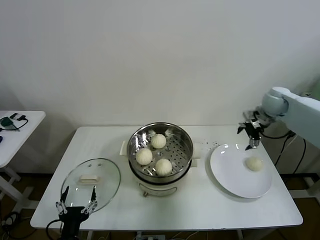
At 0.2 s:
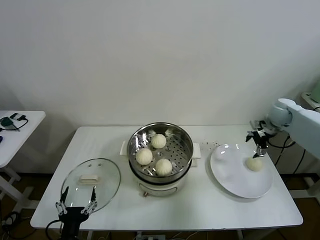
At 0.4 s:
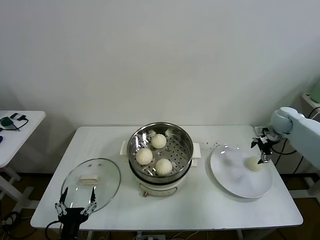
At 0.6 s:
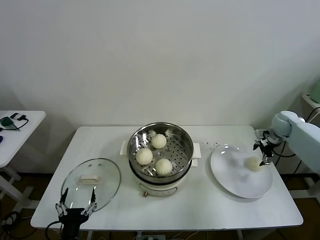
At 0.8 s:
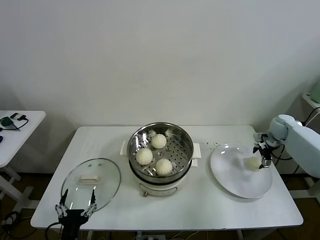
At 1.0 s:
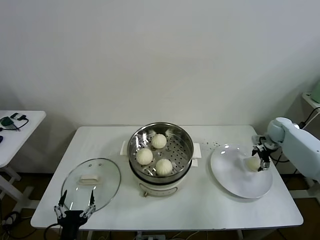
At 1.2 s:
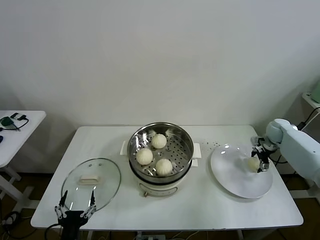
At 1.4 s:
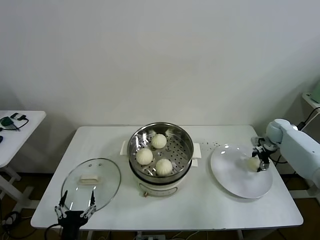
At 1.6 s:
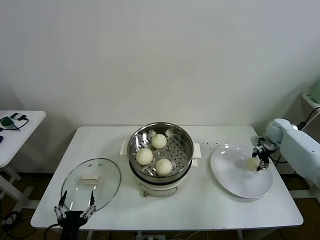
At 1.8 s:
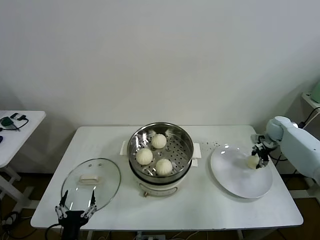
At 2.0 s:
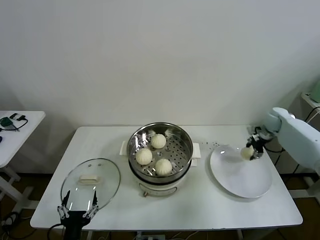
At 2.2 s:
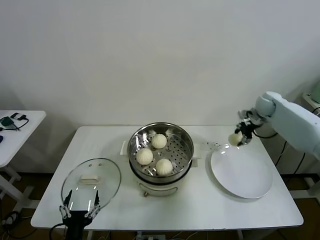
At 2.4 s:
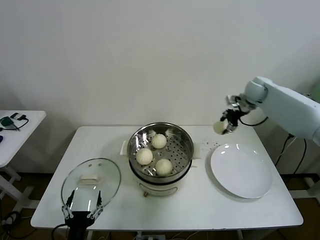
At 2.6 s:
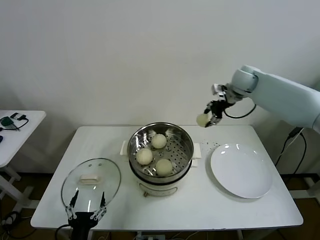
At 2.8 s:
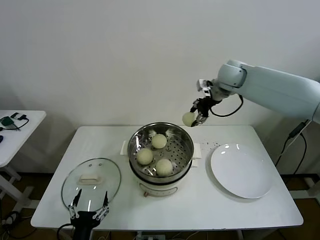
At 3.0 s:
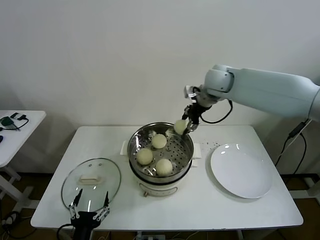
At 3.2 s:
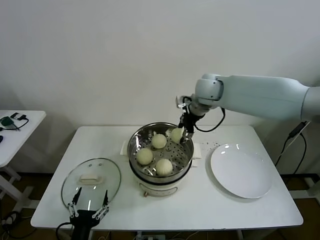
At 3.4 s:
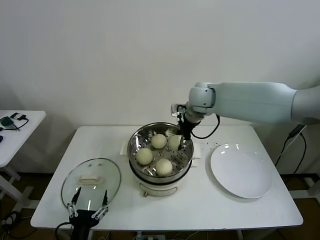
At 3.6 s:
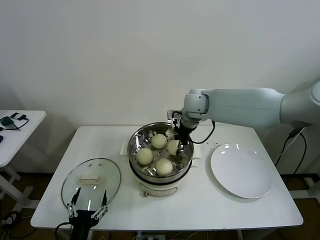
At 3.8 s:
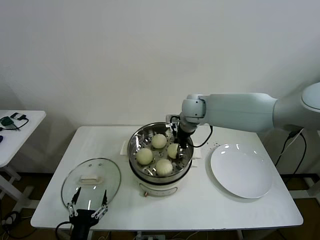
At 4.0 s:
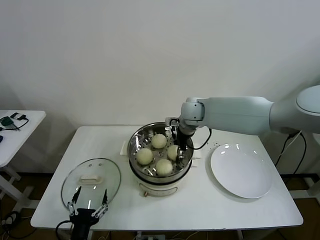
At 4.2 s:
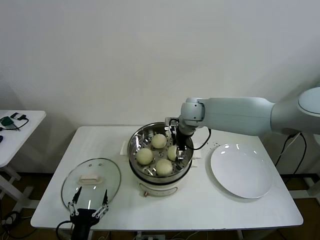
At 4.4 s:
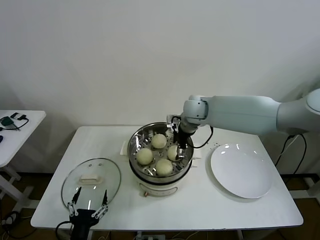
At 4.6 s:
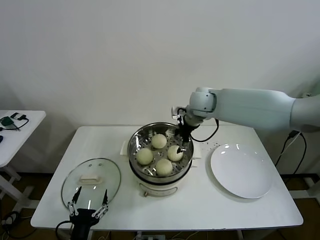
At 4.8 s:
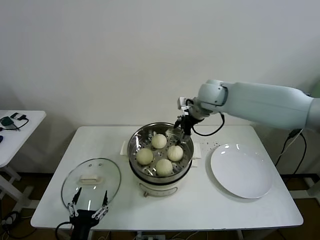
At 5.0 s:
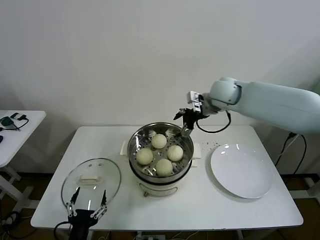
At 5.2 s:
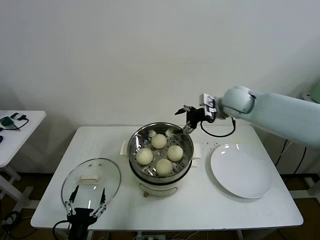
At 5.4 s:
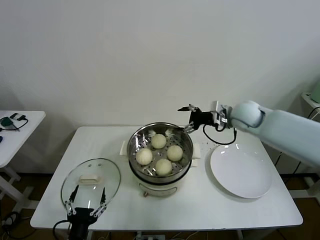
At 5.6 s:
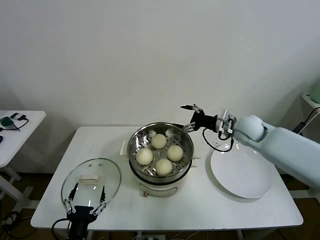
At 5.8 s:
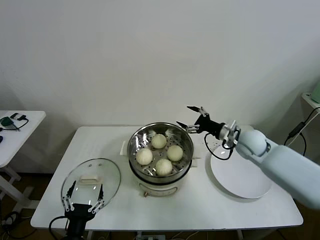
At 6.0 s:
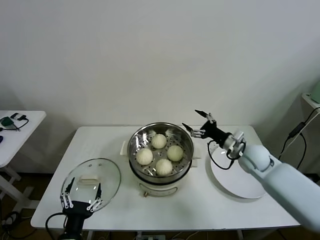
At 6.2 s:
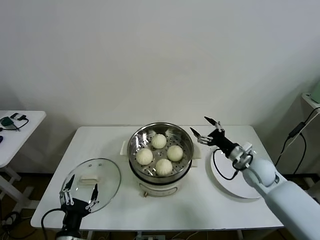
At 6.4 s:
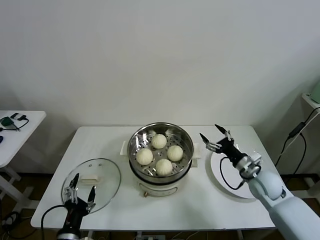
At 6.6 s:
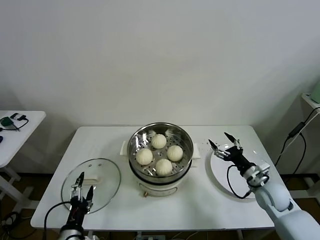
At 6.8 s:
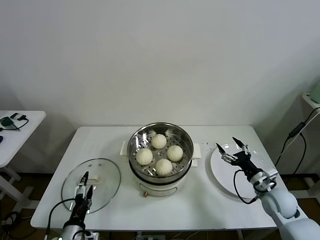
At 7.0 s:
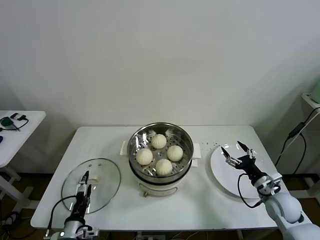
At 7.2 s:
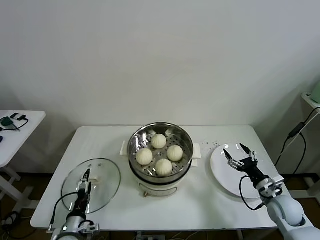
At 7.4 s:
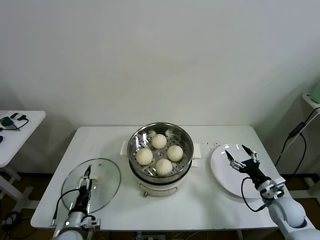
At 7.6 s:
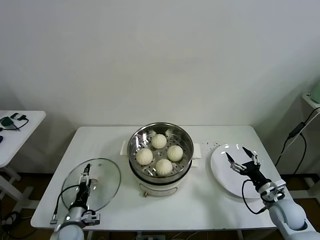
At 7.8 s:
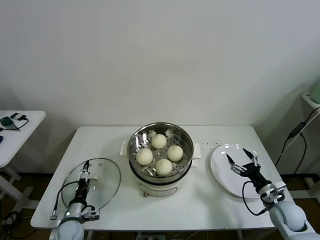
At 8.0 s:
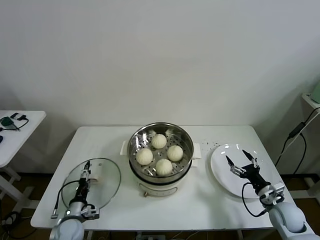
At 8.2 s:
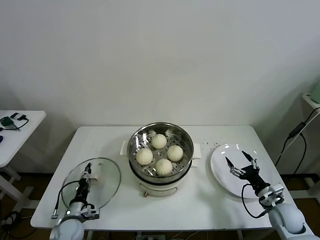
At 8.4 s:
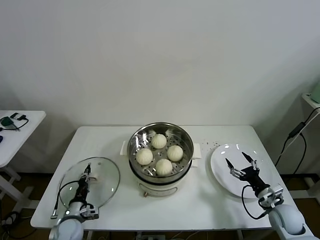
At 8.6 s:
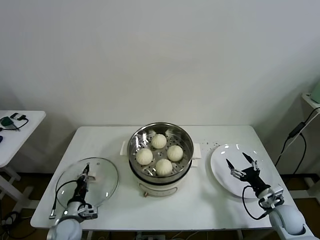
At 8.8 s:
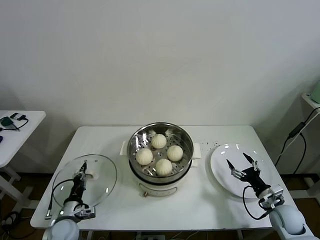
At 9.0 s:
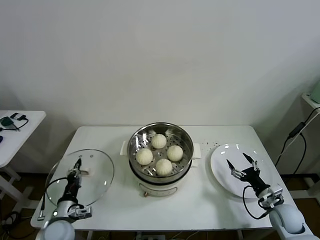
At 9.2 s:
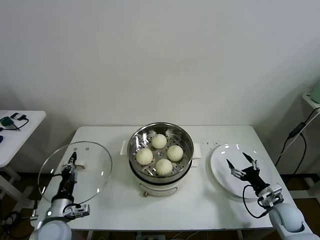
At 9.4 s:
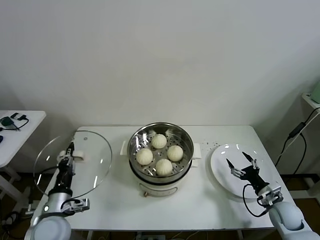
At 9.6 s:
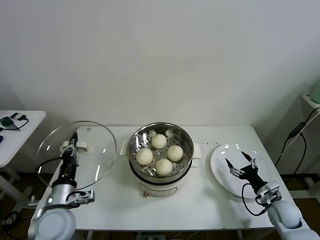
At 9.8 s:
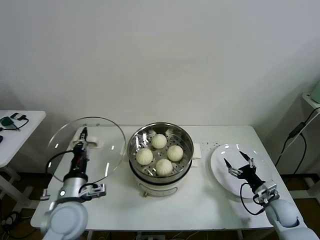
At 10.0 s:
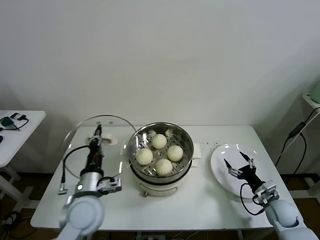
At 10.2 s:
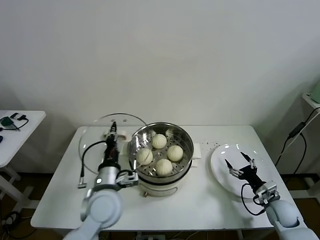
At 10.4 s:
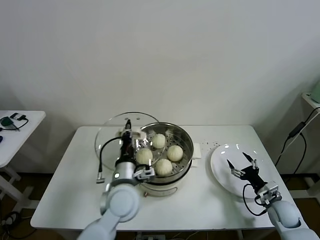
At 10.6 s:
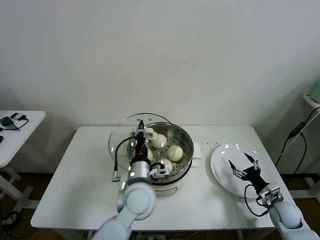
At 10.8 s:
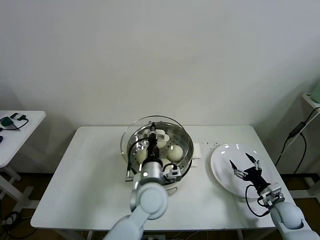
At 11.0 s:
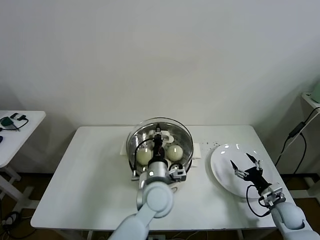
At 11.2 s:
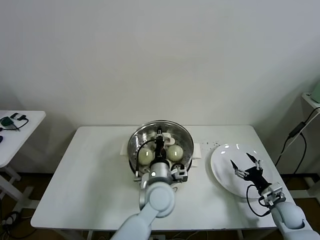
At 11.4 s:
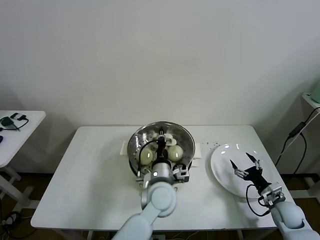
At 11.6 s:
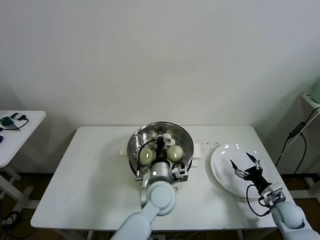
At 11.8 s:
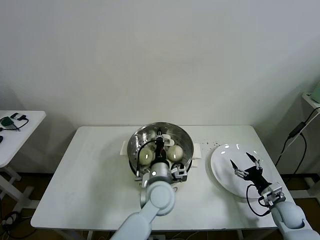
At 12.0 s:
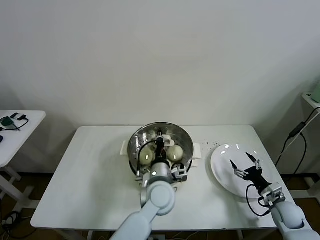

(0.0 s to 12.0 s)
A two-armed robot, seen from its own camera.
Task of the whole recording: take steamed baozi put them in steamer then cover it.
Step, 0.0 s - 1.6 s: Grasp the baozi in the plate with right gripper.
Step, 1.8 s - 4.4 s: Place the baozi on the steamer with right gripper.
Step, 4.6 s - 8.6 s: Grasp the pot lid with left gripper.
0.0 s - 1.6 s: The right gripper is displaced downward and to the right by some 15 cm, and closes.
1.6 s - 3.0 s: The right gripper goes approximately 40 cm to the left and upward.
3.0 s - 4.4 s: The right gripper goes about 10 cm downward and to the left, and opens up.
4.4 s - 6.0 s: The right gripper is displaced to the right, downward and backward by approximately 25 cm.
6.0 s - 7.6 s: The right gripper goes roughly 20 cm backward, downward and to the right. Meanwhile the left gripper heads downward, forward and to the left, covering approximately 20 cm.
7.6 s - 9.0 s: The left gripper closes up.
9.0 s - 10.4 s: The left gripper is displaced to the right and upward by some 25 cm.
10.4 s - 12.0 s: The left gripper goes roughly 10 cm to the right.

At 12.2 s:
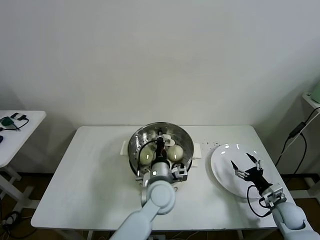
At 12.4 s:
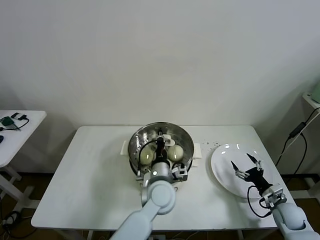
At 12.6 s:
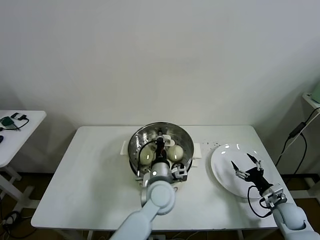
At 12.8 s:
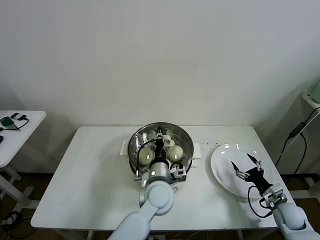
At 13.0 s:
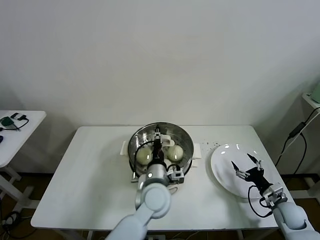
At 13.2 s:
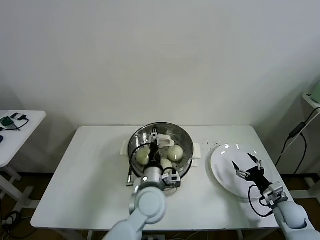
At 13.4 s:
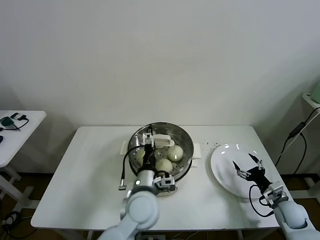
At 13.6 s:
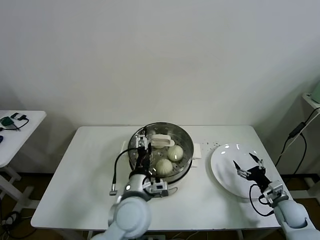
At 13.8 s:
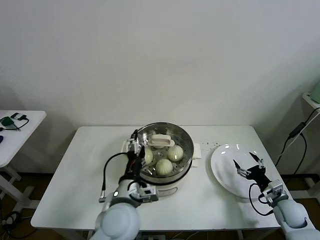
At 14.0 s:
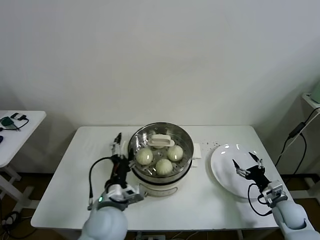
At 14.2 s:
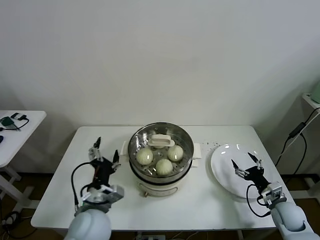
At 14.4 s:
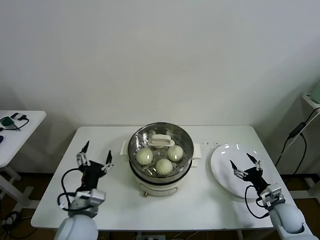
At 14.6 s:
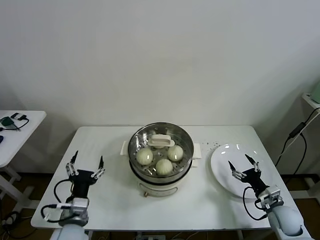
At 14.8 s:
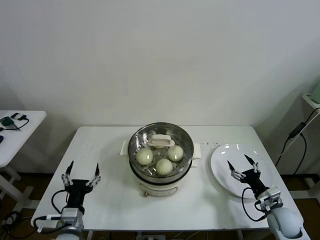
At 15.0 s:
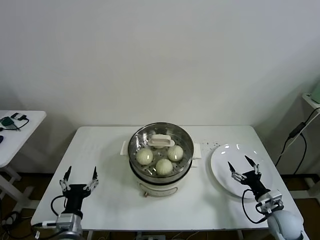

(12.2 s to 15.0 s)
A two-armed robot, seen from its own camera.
Task of the whole recording: take steamed baozi put them in steamer then cover it.
12.2 s - 13.6 s: The left gripper shifts roughly 10 cm to the left and backward, and opens up.
13.6 s - 15.0 s: The left gripper travels to the left, downward and backward by roughly 25 cm.
